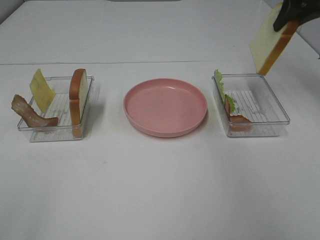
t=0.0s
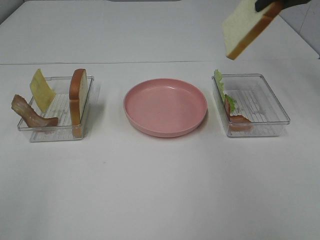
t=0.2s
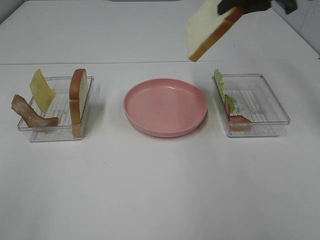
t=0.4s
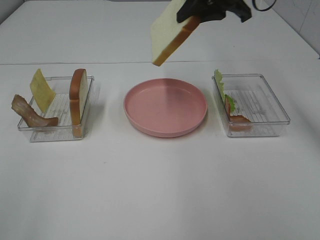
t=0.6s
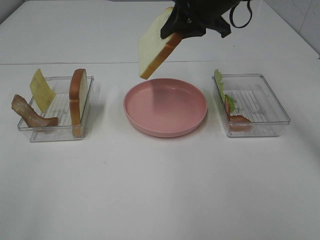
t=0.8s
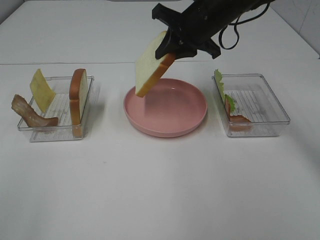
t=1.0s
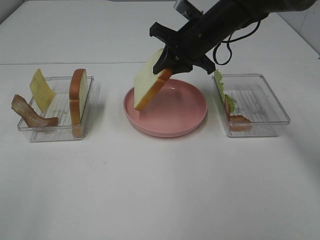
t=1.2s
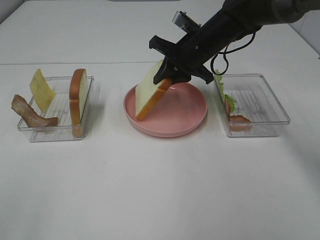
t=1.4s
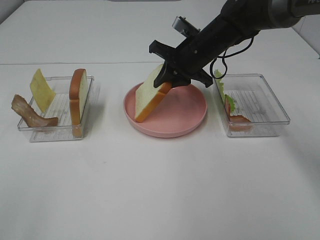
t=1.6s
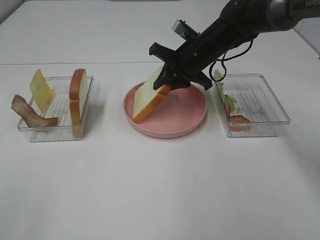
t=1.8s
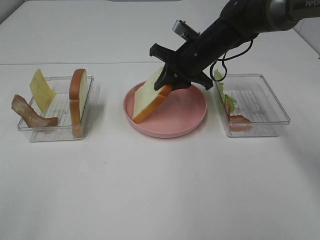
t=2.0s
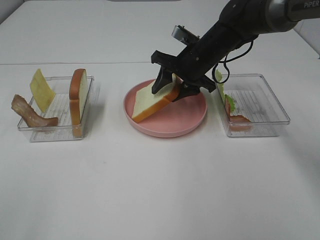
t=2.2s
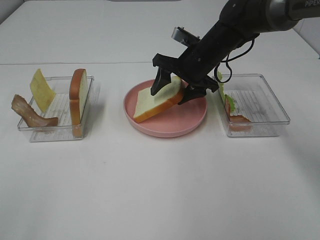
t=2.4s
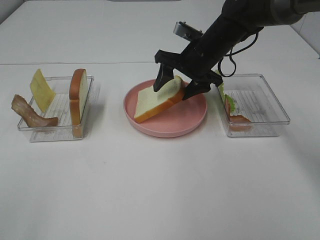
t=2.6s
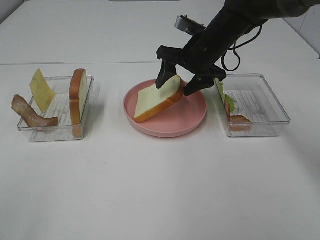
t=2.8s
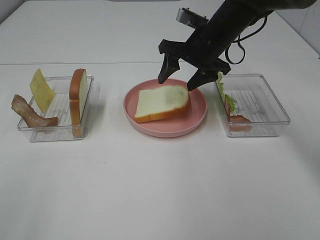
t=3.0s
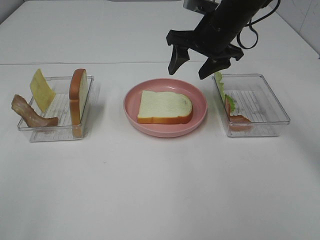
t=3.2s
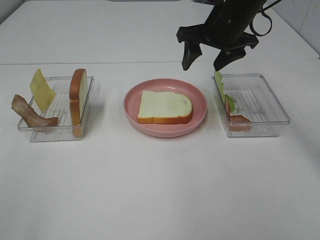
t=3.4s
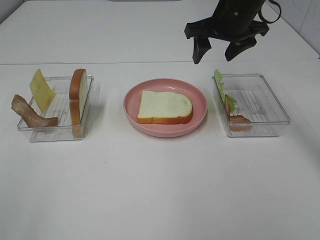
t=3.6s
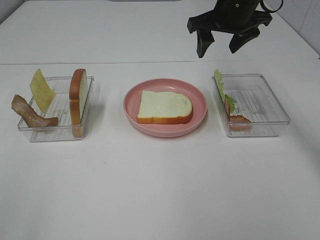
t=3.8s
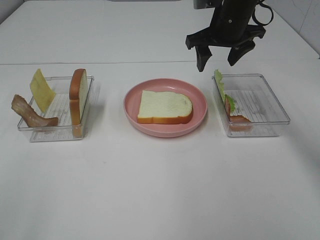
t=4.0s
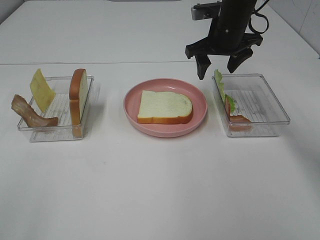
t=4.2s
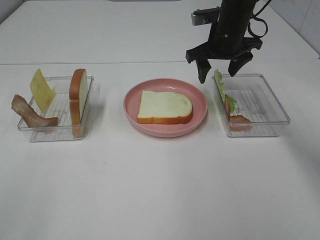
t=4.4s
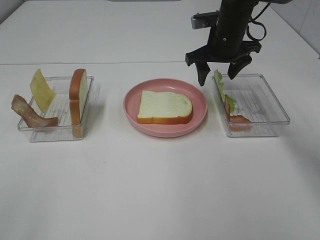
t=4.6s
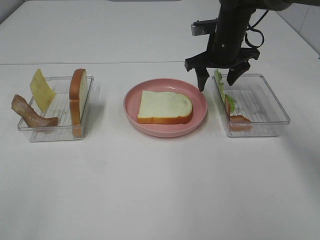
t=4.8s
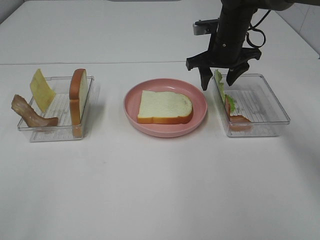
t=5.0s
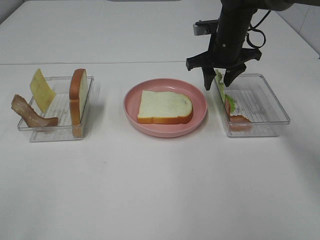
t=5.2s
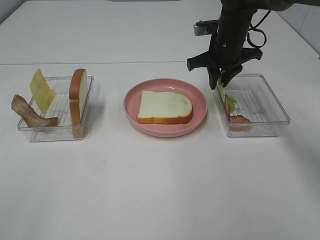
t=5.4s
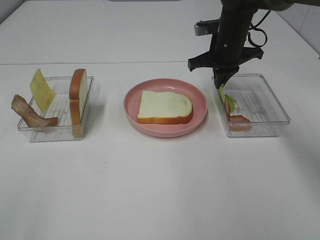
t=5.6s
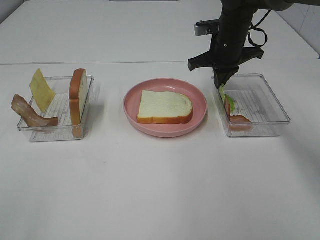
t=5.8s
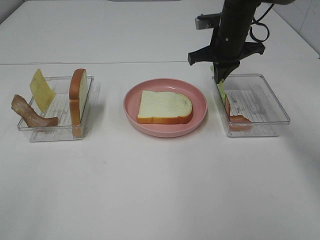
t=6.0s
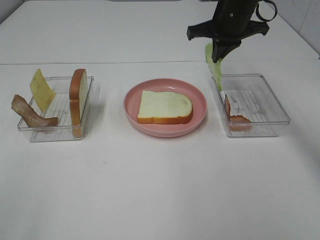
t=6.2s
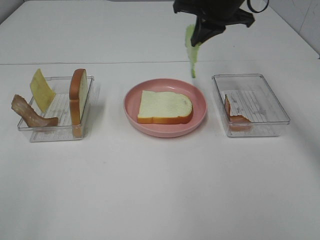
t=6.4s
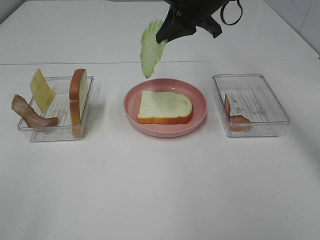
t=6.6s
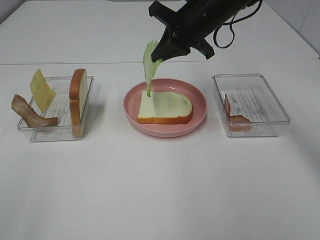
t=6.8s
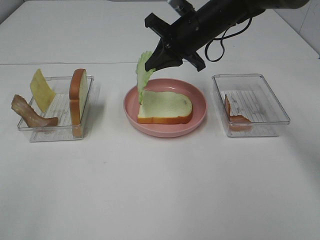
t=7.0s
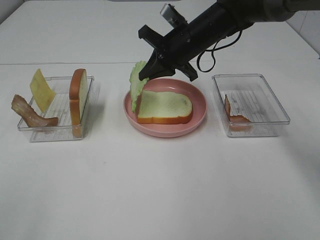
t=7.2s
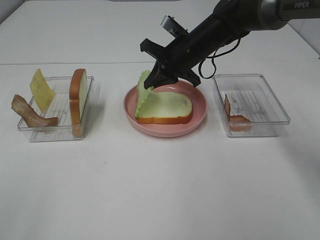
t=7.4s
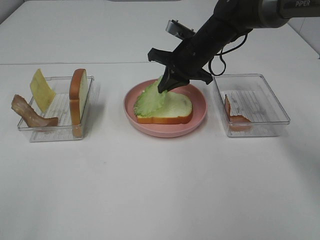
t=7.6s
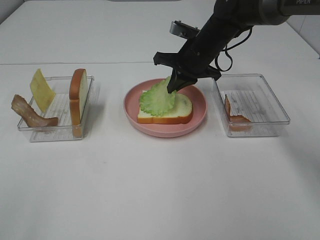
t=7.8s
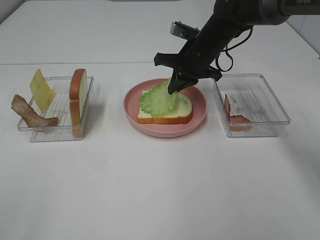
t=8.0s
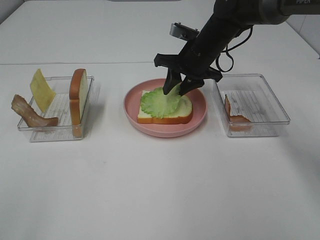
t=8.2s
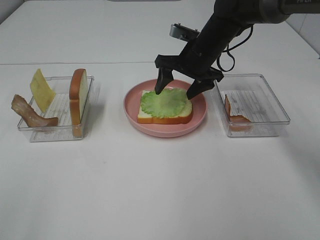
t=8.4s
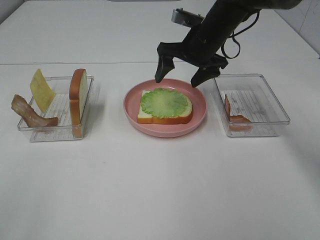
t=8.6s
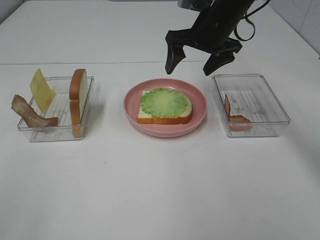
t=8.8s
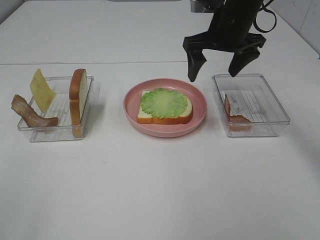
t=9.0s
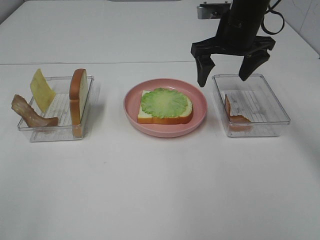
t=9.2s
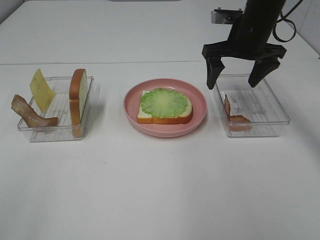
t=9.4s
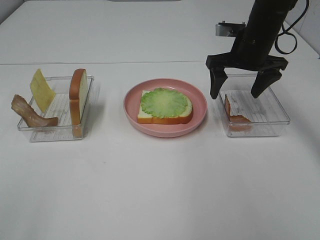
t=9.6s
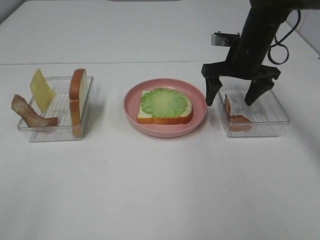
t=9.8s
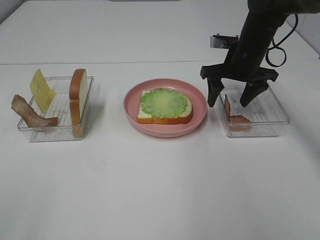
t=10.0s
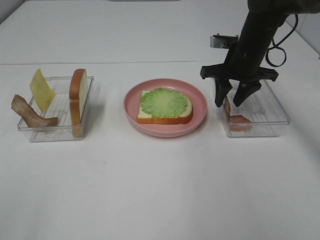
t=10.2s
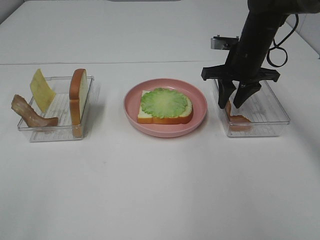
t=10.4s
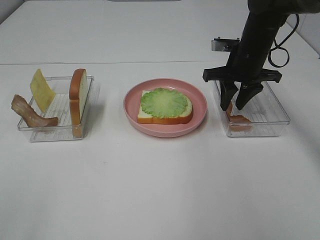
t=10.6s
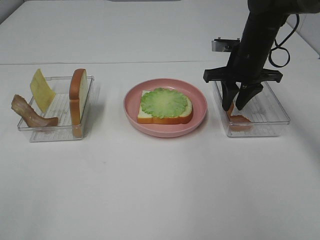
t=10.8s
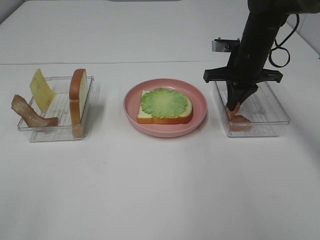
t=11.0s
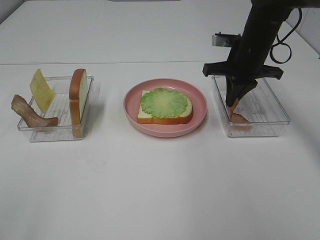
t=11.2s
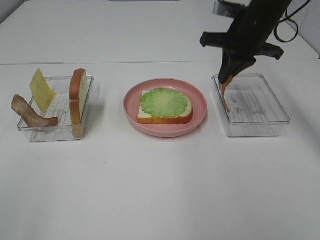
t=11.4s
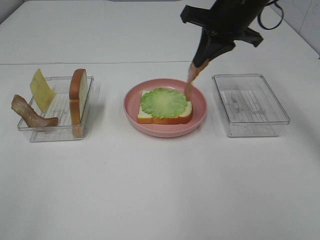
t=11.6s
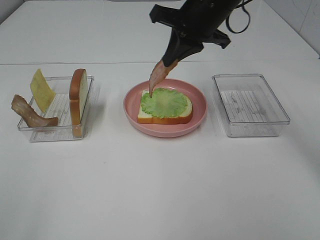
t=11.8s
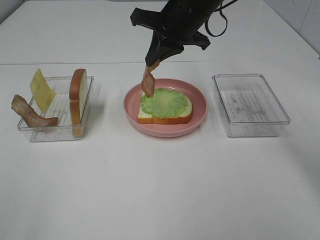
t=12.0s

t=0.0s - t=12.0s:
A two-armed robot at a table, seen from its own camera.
Task of the whole recording: Make sandwiches.
Step, t=0.0s - t=3.0s: Right hand:place the bread slice on the plate.
Step, t=3.2s - t=6.0s: Right hand:grab the lettuce slice.
Step, t=6.2s - t=8.6s: Right hand:place the lettuce slice on the bread slice.
Step, t=8.8s - t=11.2s: Right hand:grab the bacon.
t=0.0s - t=1.6s: The right gripper heads to the left and downward, covering approximately 25 cm.
t=1.6s - t=3.0s: The right gripper opens up.
t=4.4s - t=6.0s: The right gripper closes its fingers.
t=6.0s - t=7.6s: The right gripper is displaced to the left by roughly 5 cm, and travels upward and back again, about 10 cm each way.
t=7.6s - t=9.0s: The right gripper is displaced upward by some 10 cm, and opens its fingers.
t=9.0s - t=10.4s: The right gripper shifts roughly 5 cm downward, and closes.
t=10.4s - t=12.0s: The right gripper is displaced to the left and upward by roughly 15 cm, and closes its fingers.

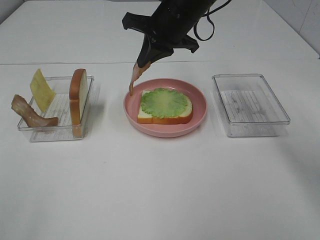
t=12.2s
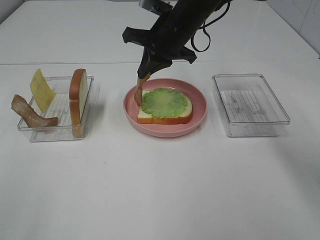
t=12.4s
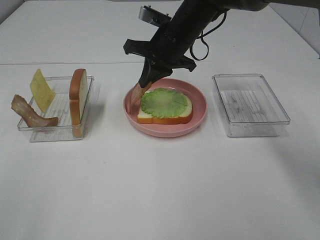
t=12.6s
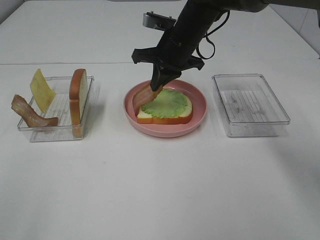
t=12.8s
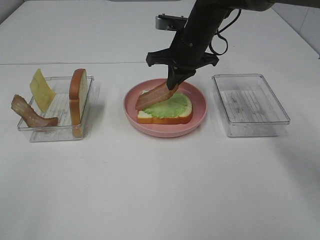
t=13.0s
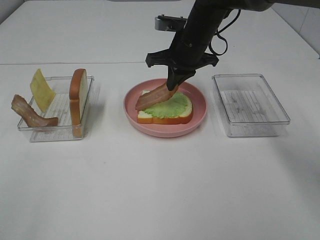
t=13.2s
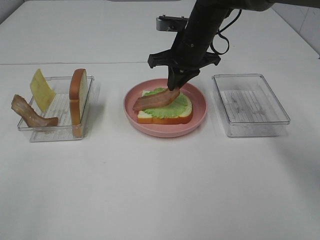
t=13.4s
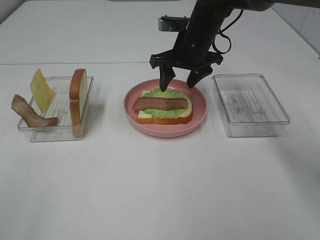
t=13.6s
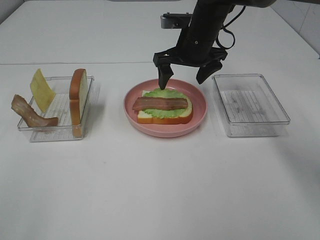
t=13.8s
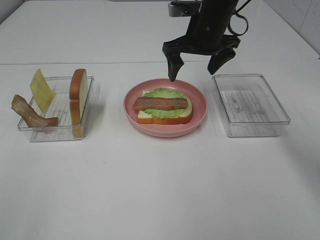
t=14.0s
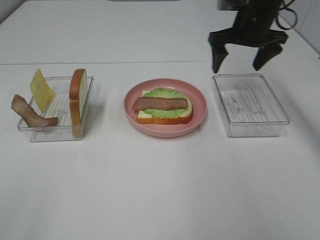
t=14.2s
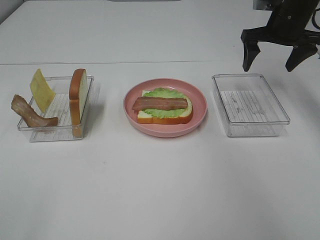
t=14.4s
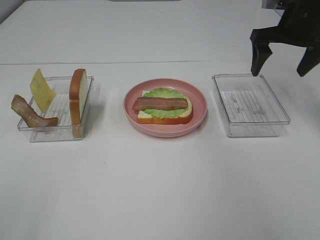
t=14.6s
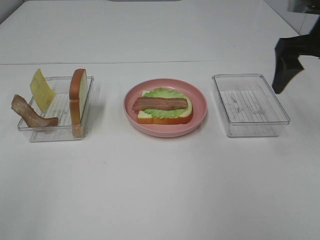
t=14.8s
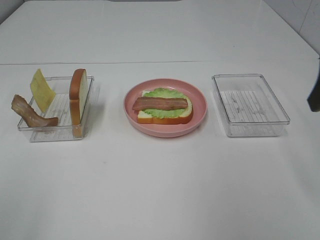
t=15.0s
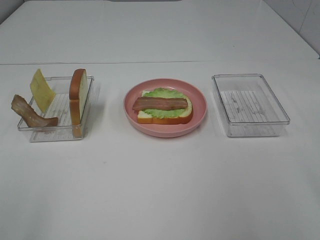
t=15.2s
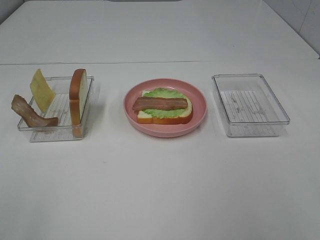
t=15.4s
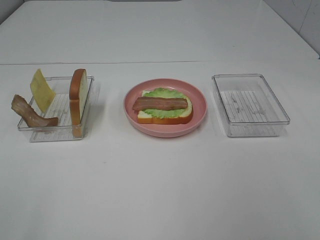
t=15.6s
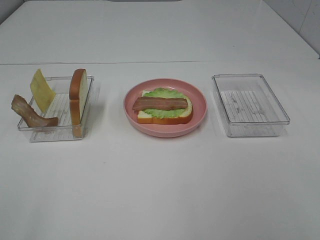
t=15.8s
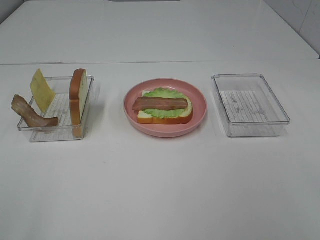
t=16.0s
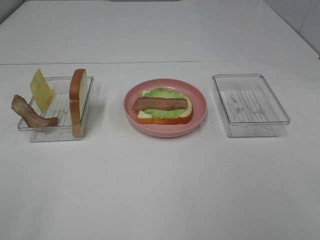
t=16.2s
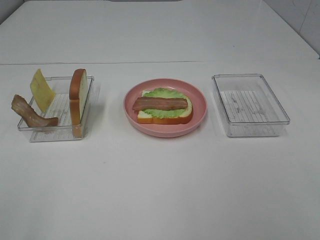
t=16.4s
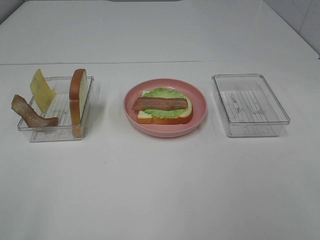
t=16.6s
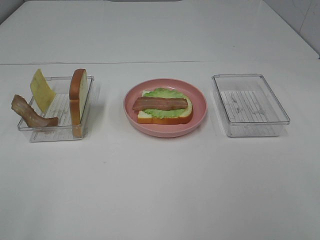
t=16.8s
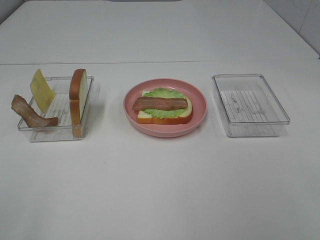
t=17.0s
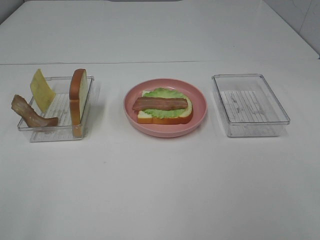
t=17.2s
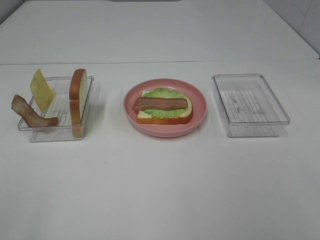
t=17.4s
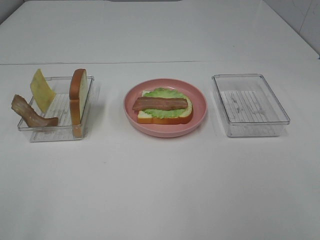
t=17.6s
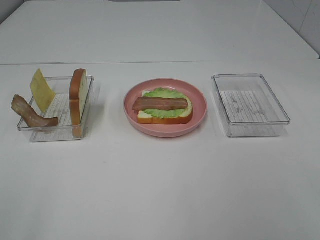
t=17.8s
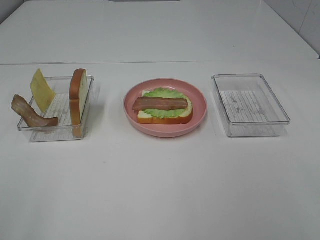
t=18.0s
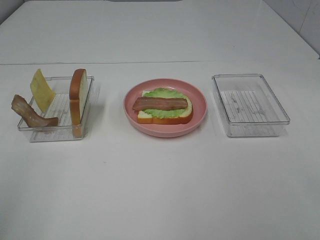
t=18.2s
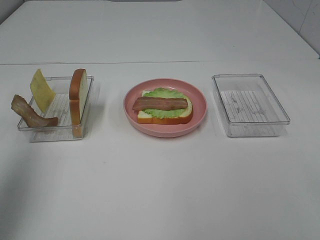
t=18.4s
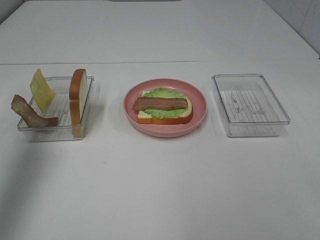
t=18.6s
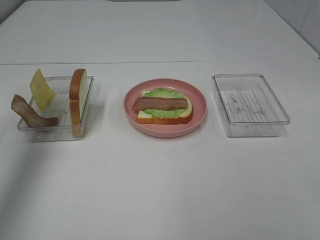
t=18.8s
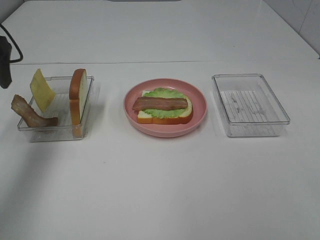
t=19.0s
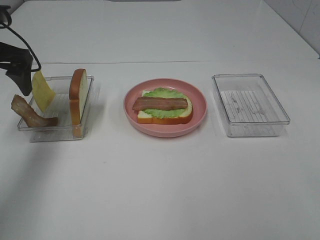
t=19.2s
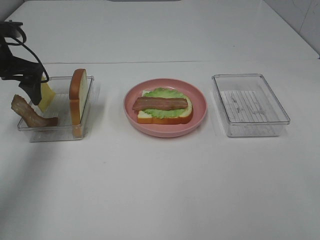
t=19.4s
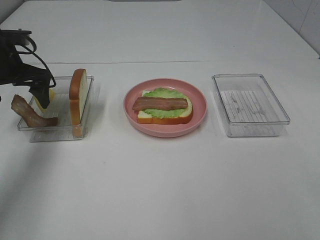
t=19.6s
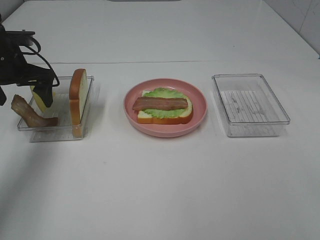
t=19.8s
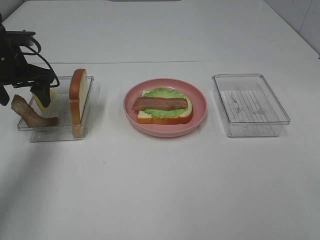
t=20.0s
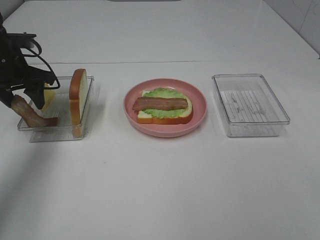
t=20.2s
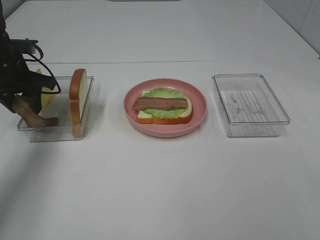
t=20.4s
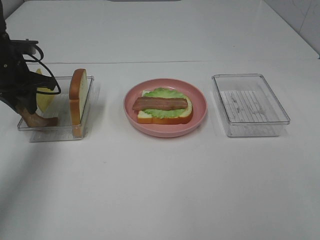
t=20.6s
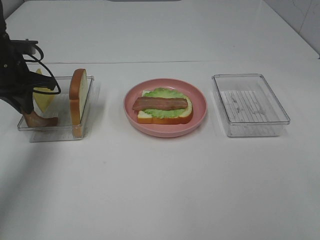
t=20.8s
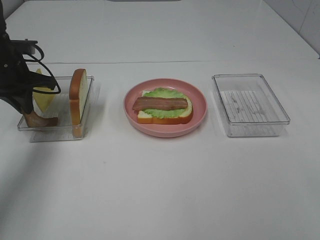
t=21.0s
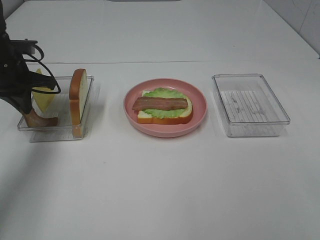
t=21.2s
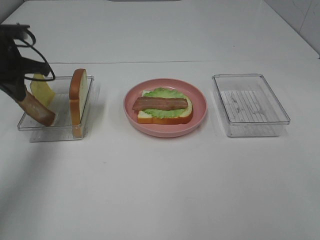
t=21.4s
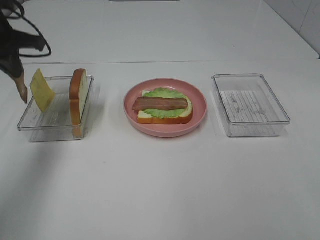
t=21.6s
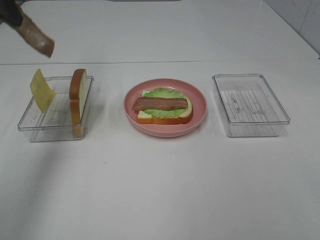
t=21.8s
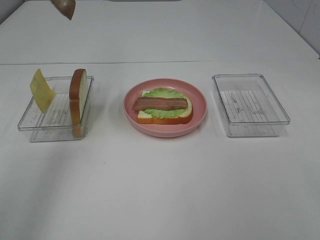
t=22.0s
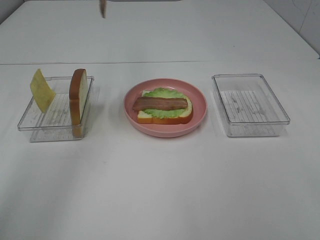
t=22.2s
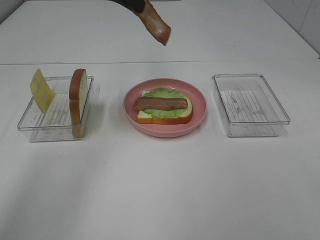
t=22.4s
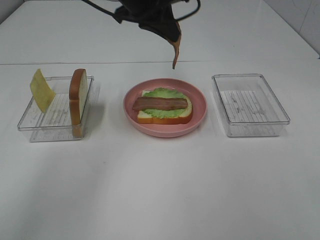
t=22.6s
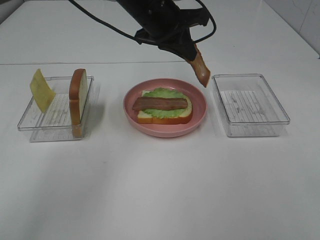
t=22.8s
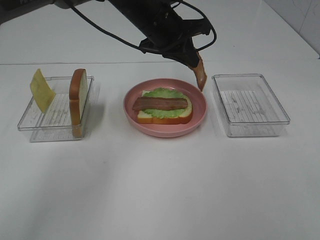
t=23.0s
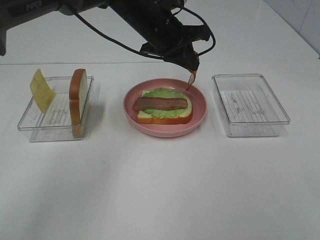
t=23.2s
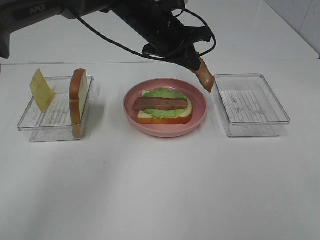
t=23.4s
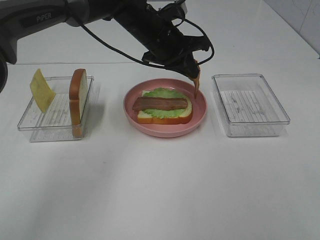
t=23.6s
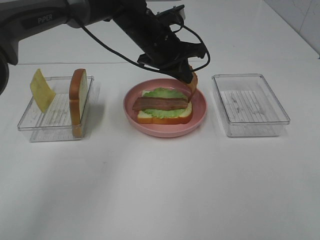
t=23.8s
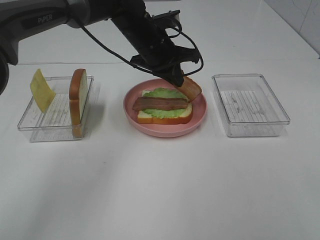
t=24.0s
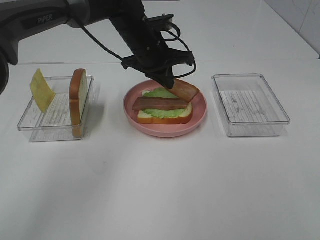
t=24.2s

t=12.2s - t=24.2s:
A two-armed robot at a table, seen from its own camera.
Task of the whole recording: Make sandwiches.
Step, t=12.2s - t=13.8s: Right hand:place bacon on lettuce slice.
Step, t=14.0s - t=21.2s: Left hand:grab the bacon.
t=12.2s - t=13.8s: The right gripper moves some 5 cm, and opens up.
t=13.8s - t=15.2s: The right gripper goes about 40 cm backward, to the right and upward.
t=18.2s - t=19.8s: The left gripper goes roughly 40 cm forward and downward.
t=19.8s - t=21.2s: The left gripper closes its fingers.
t=21.2s - t=22.6s: The left gripper shifts approximately 25 cm to the right and upward.
t=22.6s - t=24.2s: The left gripper travels downward by roughly 10 cm.
